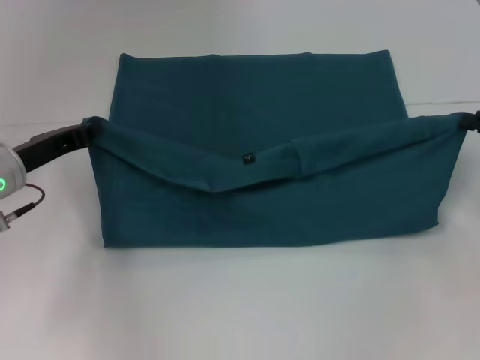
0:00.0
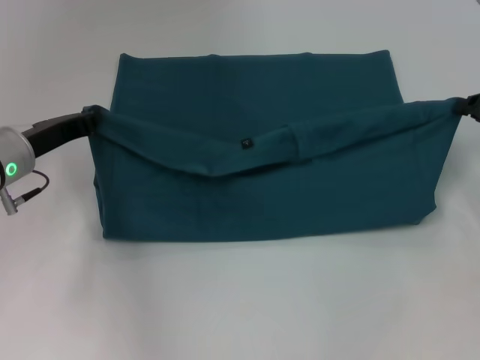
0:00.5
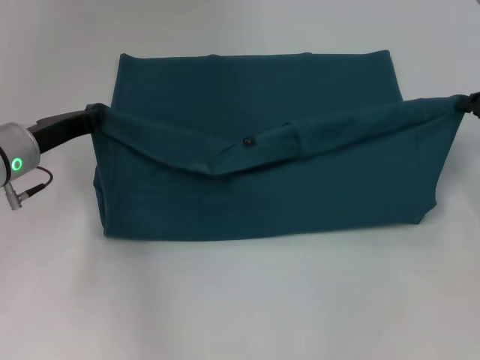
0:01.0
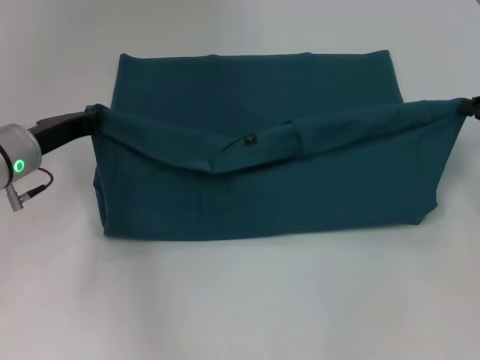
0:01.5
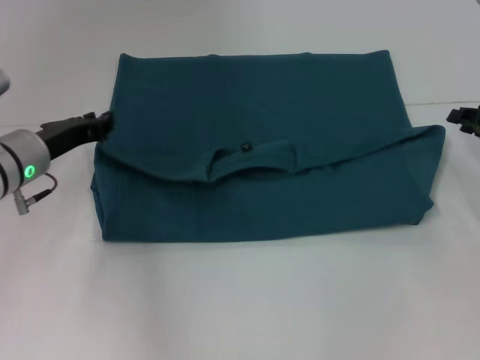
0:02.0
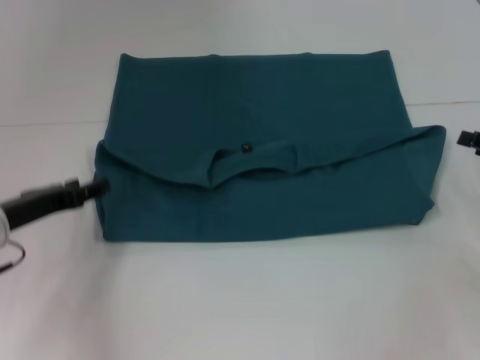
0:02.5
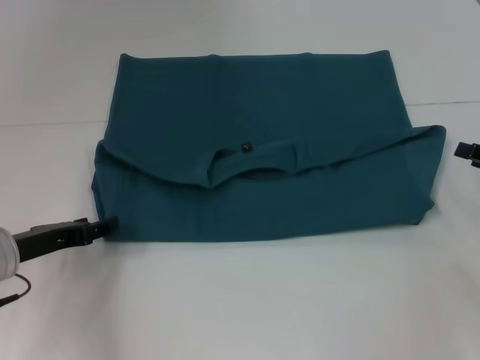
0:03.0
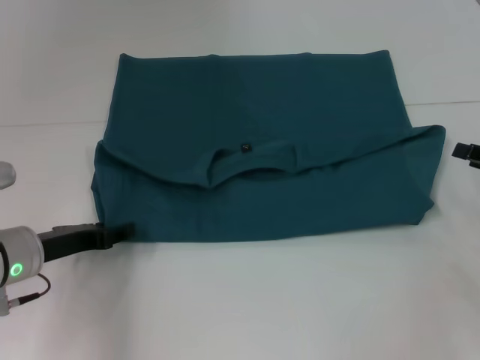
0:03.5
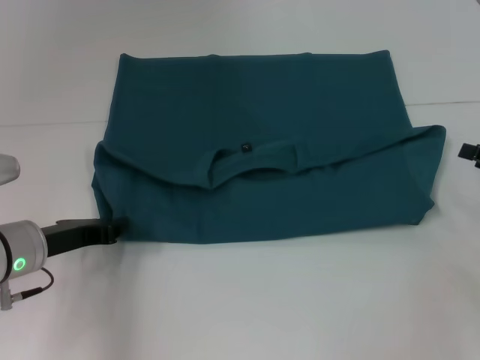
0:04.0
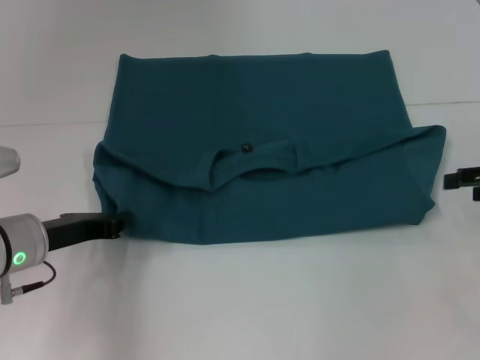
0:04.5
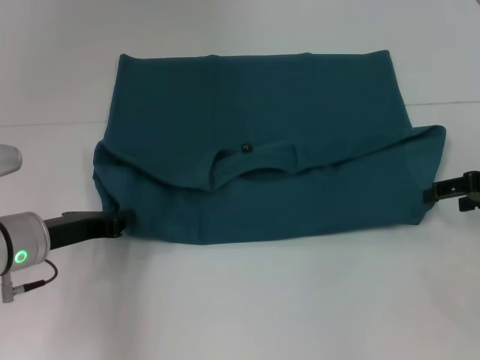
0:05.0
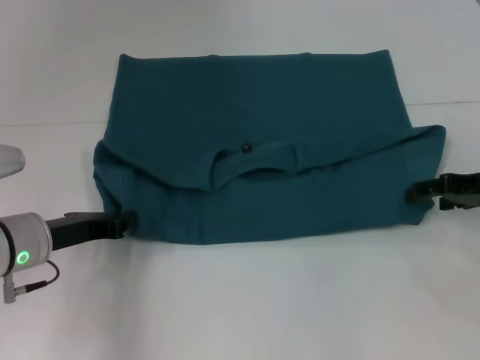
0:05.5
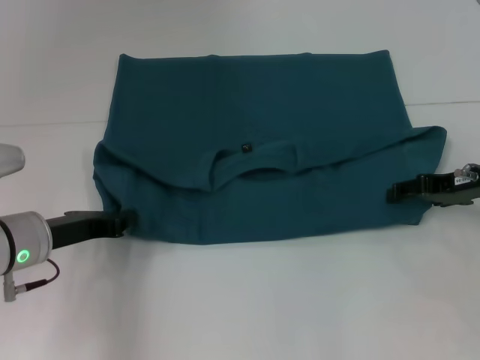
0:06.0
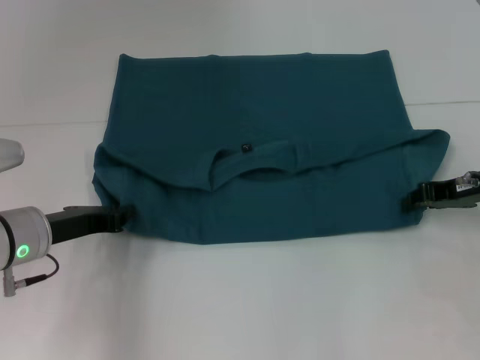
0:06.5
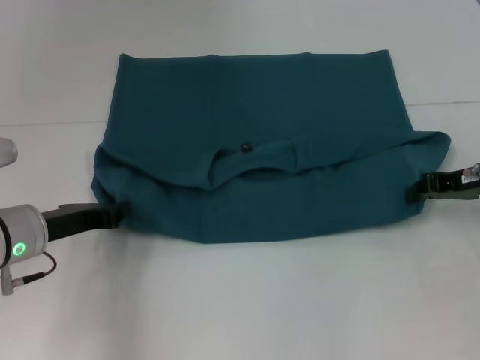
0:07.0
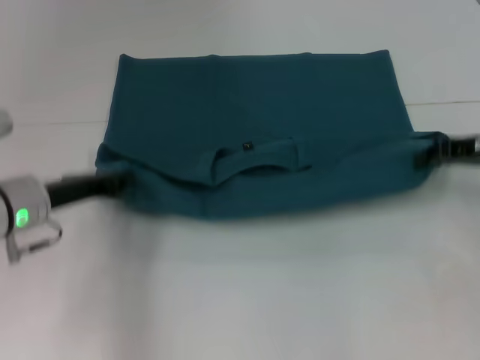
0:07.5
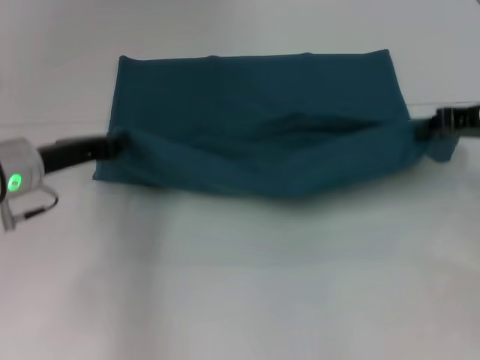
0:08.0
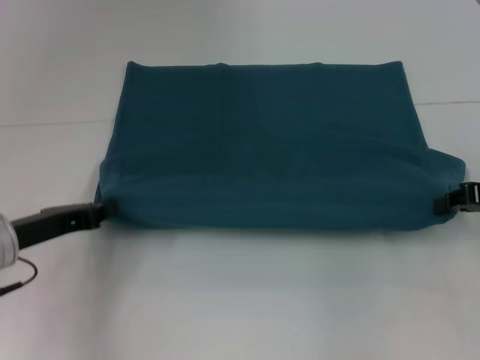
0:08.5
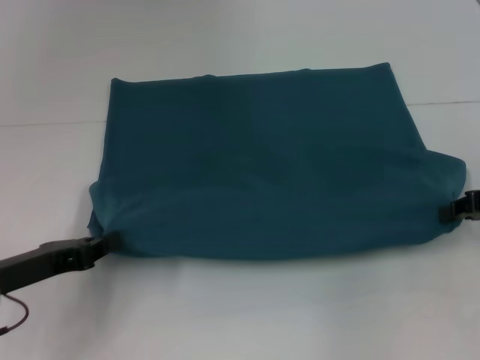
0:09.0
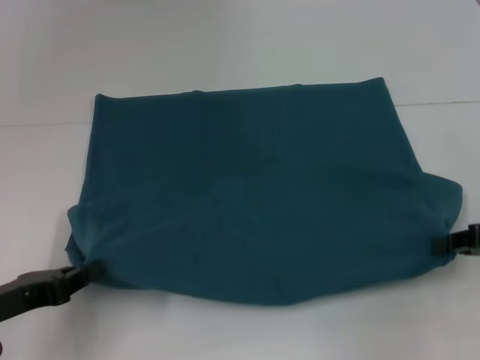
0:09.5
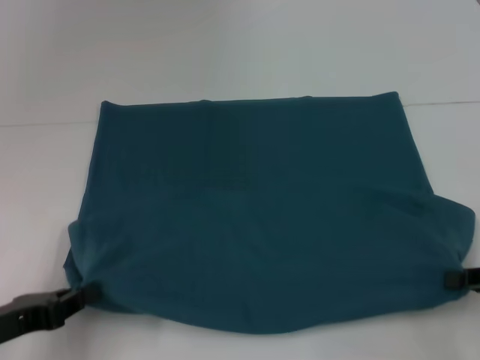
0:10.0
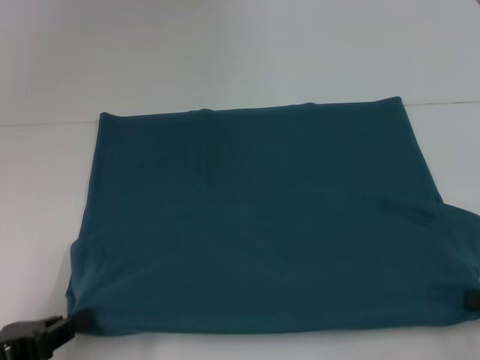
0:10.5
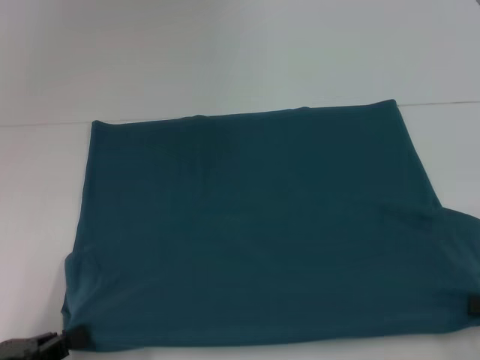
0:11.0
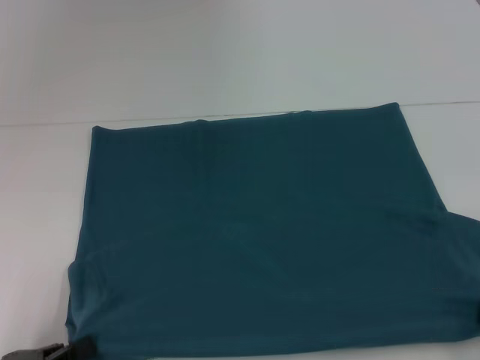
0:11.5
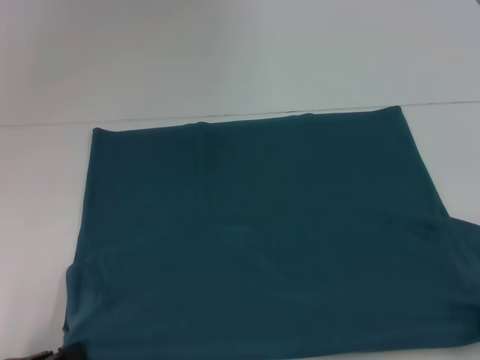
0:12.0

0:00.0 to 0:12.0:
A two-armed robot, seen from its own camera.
Step, 0:02.0 to 0:10.5: Pull the clothes with your left hand.
Step, 0:02.0 to 0:10.5: Pull the clothes with your right hand.
0:00.0 to 0:02.0: The grippers make only small movements.
0:02.0 to 0:04.0: The two grippers go roughly 5 cm backward. The right gripper opens its fingers.
0:04.0 to 0:06.0: The right gripper travels to the left and forward by about 10 cm, while the left gripper closes up.
0:06.0 to 0:08.0: The left gripper ends up about 5 cm from where it was. The right gripper is displaced upward by roughly 5 cm, and closes up.
0:08.0 to 0:10.0: The left gripper shifts roughly 15 cm backward; the right gripper shifts roughly 20 cm backward and downward.
0:10.0 to 0:12.0: The right gripper changes place by some 5 cm. Meanwhile the left gripper shifts some 5 cm backward.

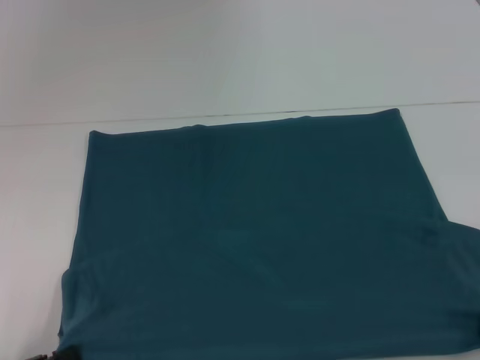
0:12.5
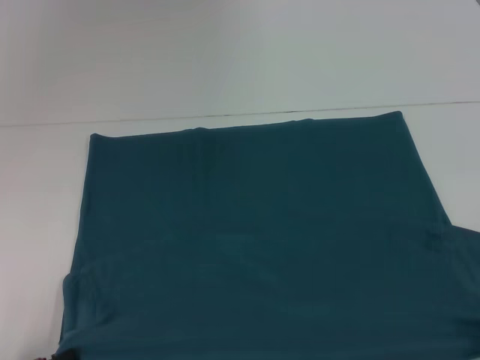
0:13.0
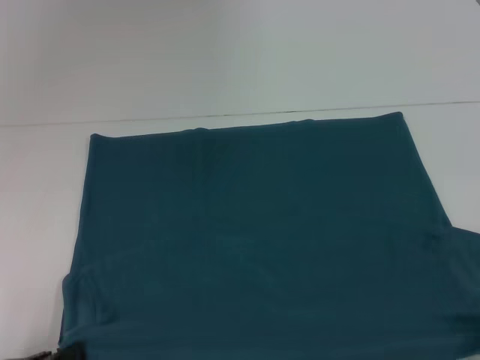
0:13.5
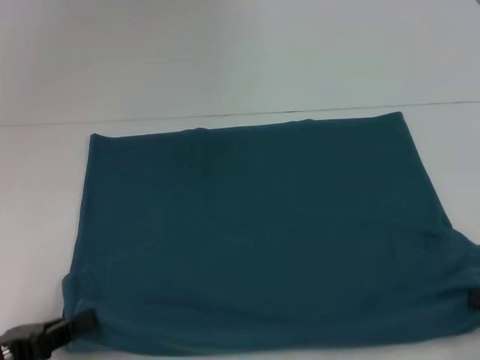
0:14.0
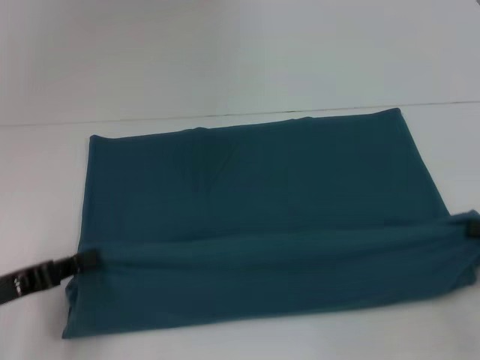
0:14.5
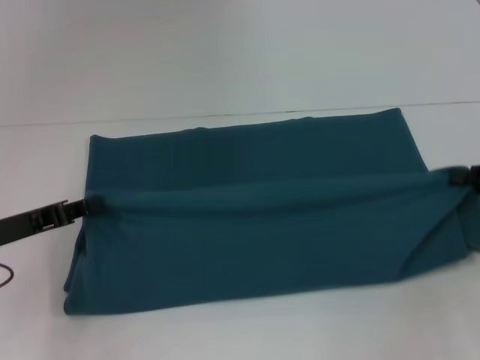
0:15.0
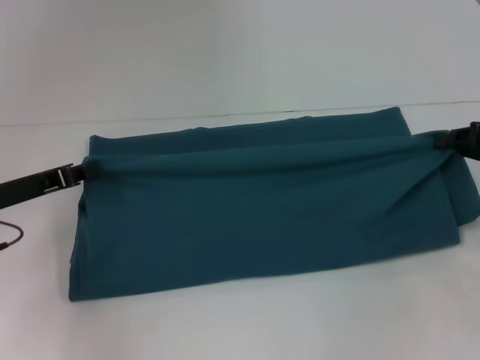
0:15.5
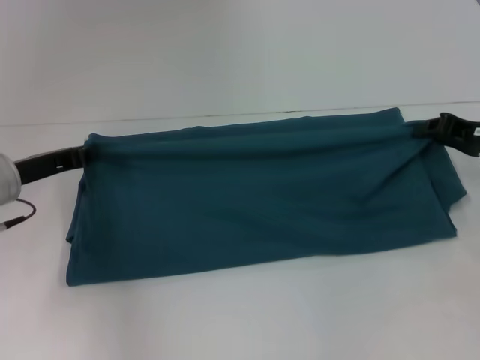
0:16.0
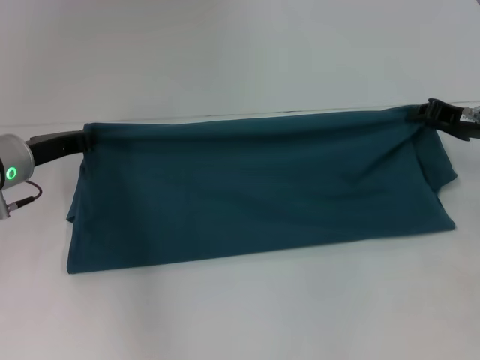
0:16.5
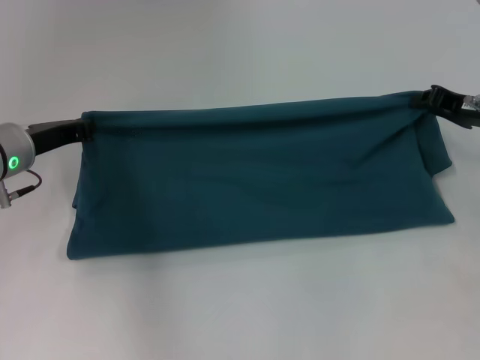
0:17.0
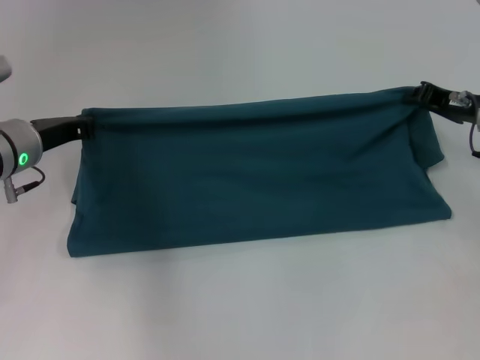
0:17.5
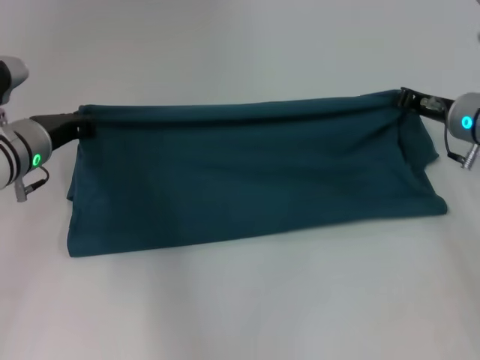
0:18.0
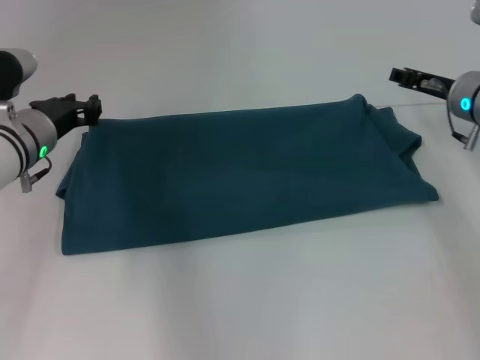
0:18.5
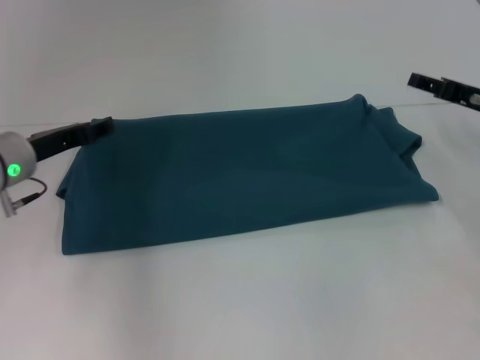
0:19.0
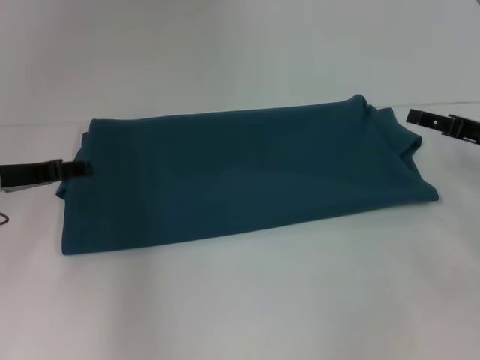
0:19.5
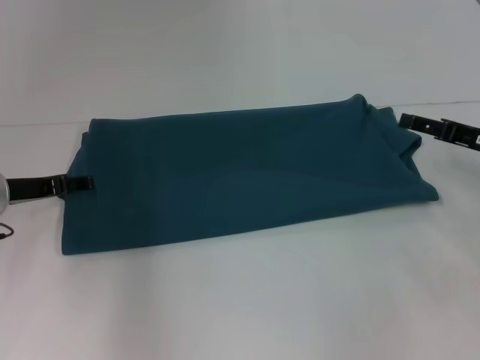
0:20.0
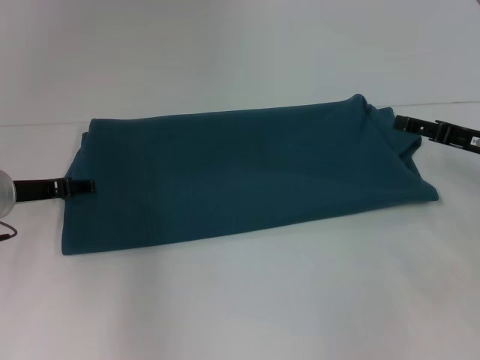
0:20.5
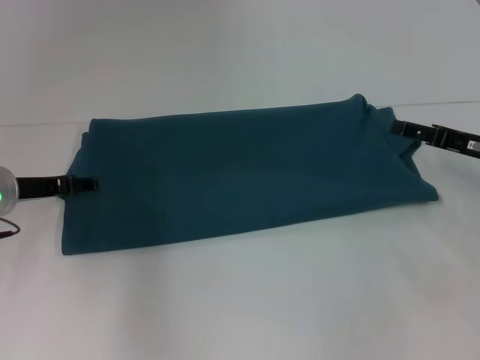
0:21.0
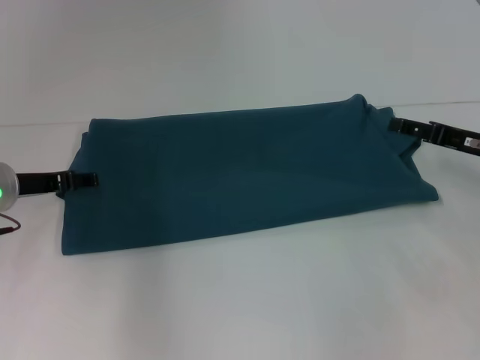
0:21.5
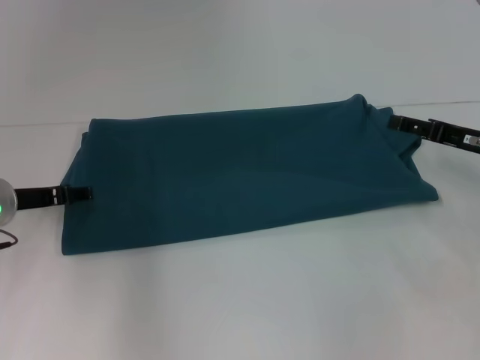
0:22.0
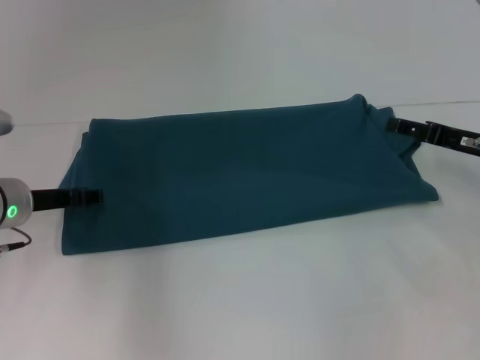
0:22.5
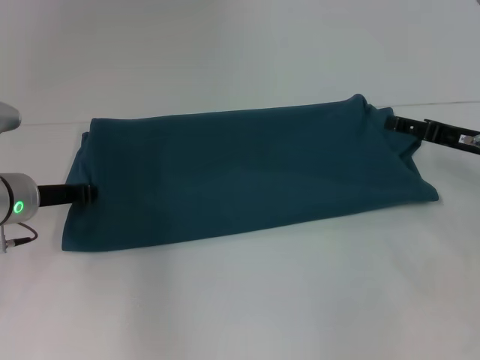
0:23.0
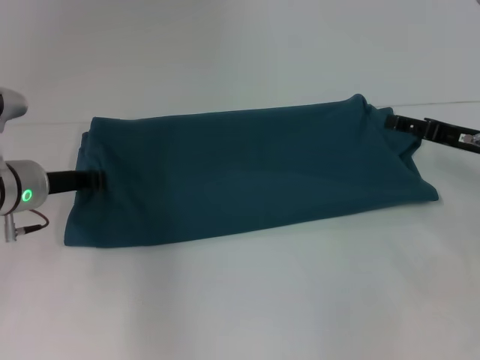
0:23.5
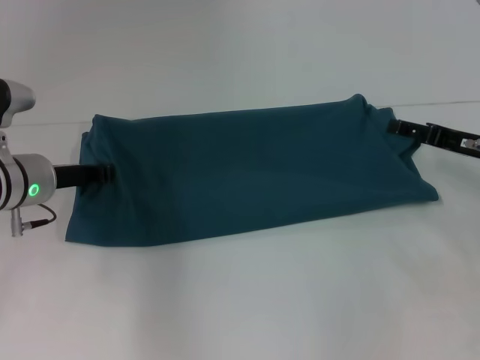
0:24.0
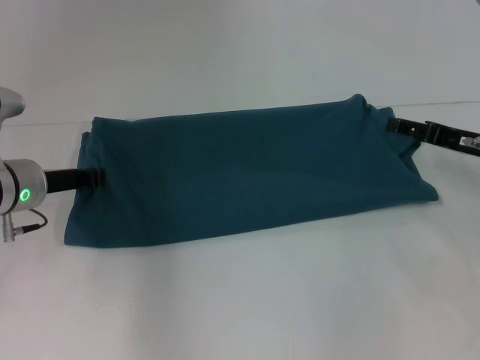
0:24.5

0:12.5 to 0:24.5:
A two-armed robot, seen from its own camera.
Step, 0:12.5 to 0:18.5: Fold the clothes to the left.
Step, 0:12.5 to 0:18.5: Fold the clothes to the right.
0:12.5 to 0:14.5: Both grippers move forward, some 10 cm.
0:14.5 to 0:16.5: The right gripper travels forward and to the left by roughly 15 cm, while the left gripper goes roughly 15 cm forward.
0:16.5 to 0:18.5: The right gripper ends up about 5 cm from where it was.
0:18.5 to 0:20.5: The right gripper heads backward and to the right, covering approximately 10 cm, and opens its fingers; the left gripper is displaced to the left by roughly 5 cm, and opens its fingers.
0:20.5 to 0:22.5: The grippers move only a little.
0:22.5 to 0:24.5: The left gripper closes its fingers.

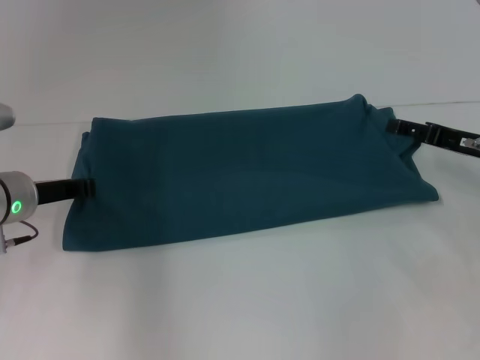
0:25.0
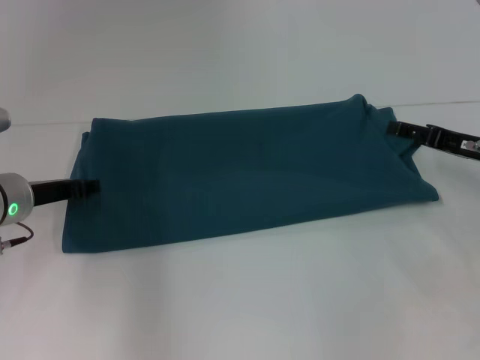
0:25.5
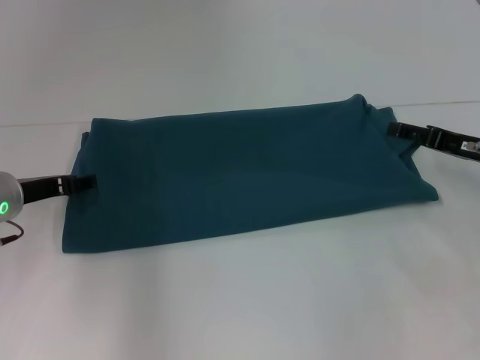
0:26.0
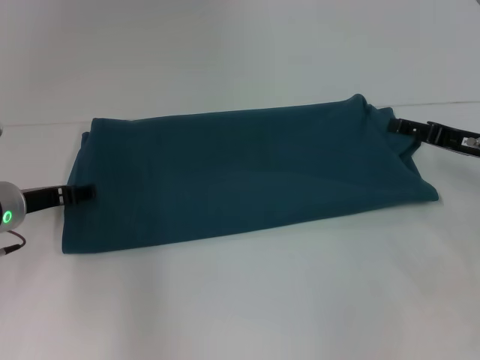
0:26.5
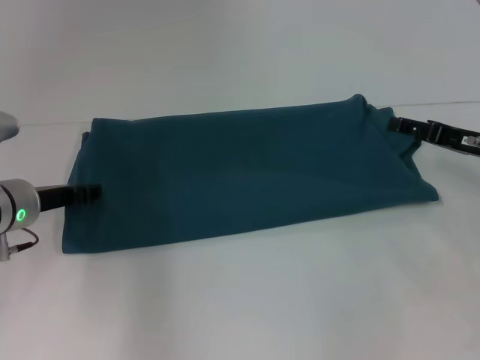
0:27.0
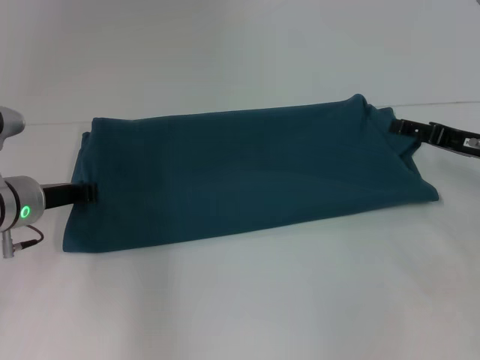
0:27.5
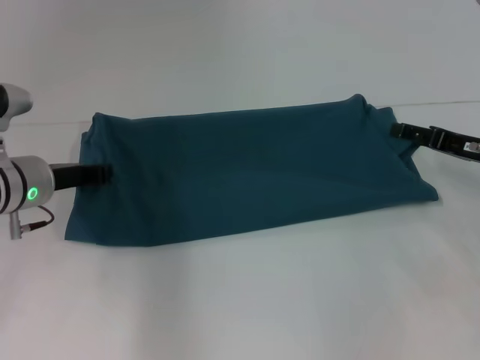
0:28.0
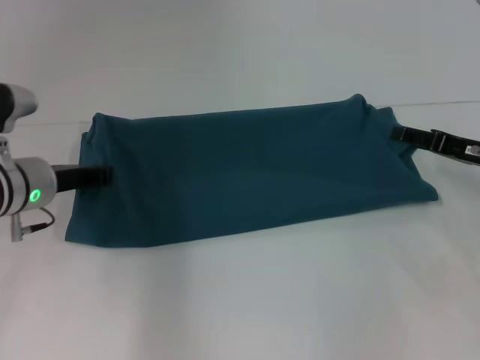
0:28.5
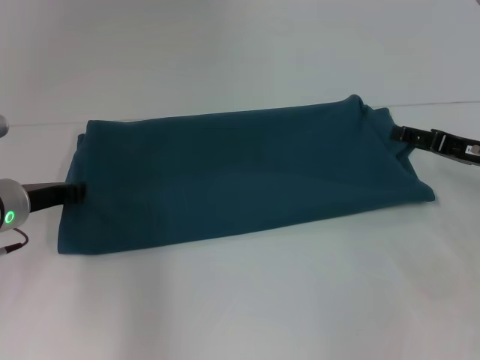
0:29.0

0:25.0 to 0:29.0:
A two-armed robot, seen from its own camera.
0:25.0 to 0:27.0: The left gripper opens.
0:27.0 to 0:29.0: The left gripper closes its fingers.
